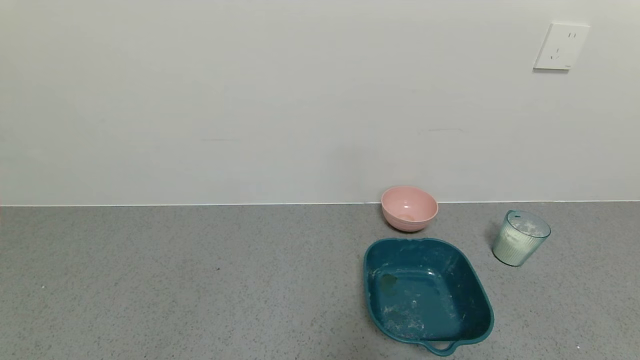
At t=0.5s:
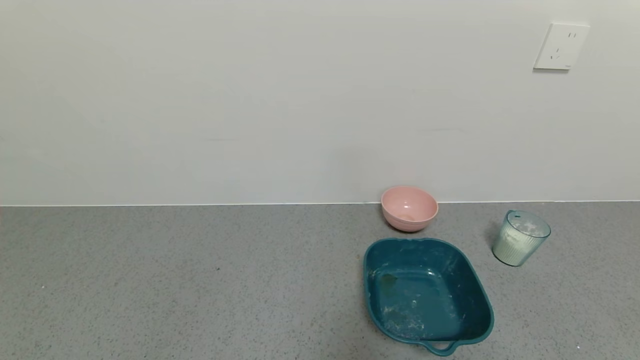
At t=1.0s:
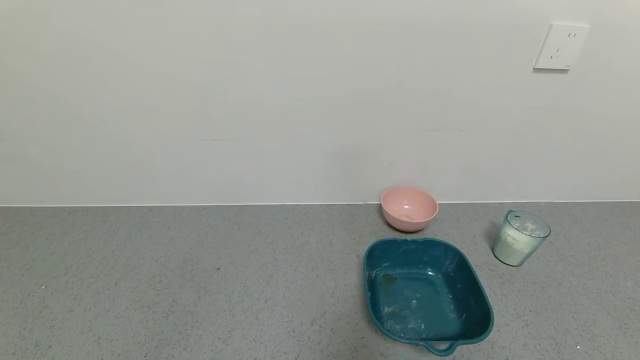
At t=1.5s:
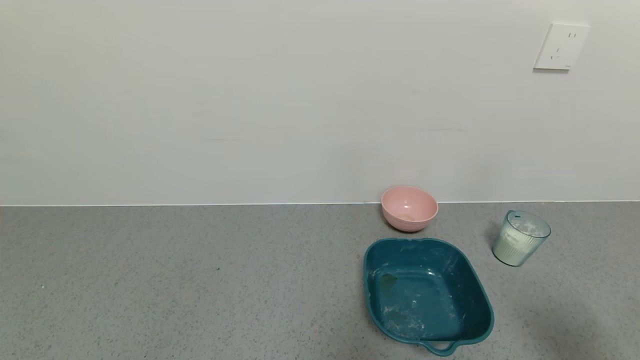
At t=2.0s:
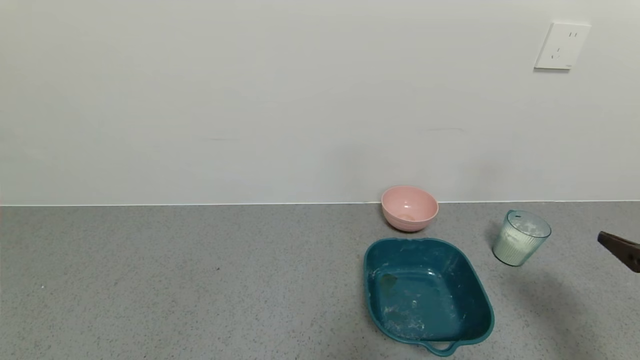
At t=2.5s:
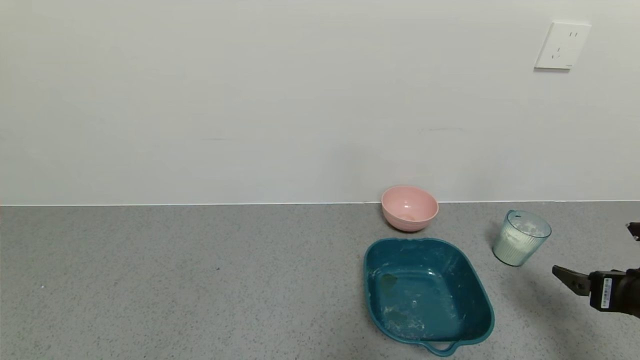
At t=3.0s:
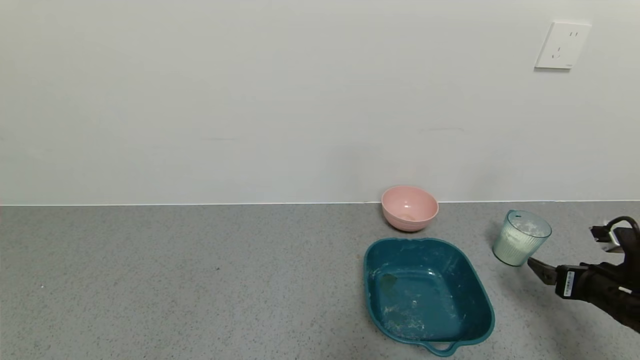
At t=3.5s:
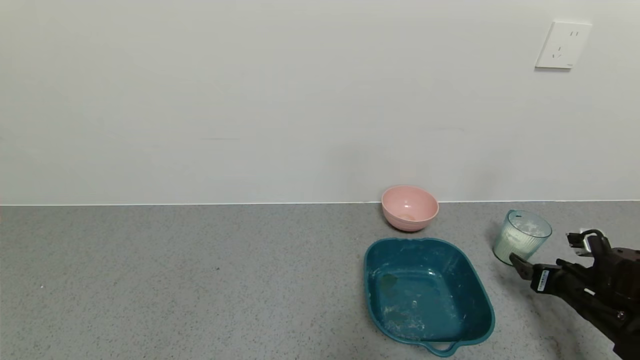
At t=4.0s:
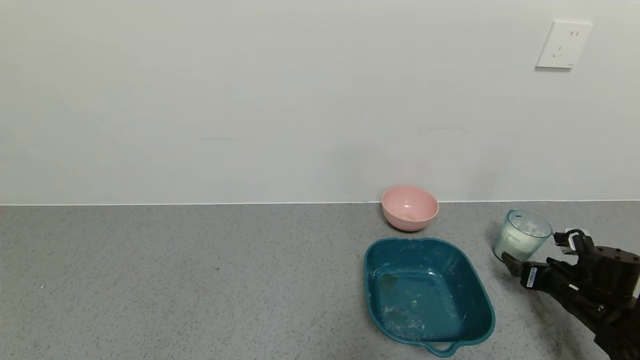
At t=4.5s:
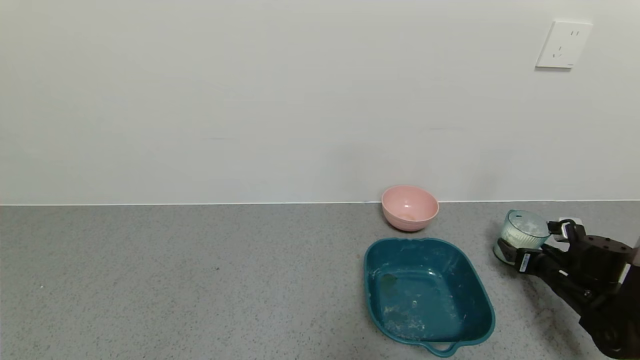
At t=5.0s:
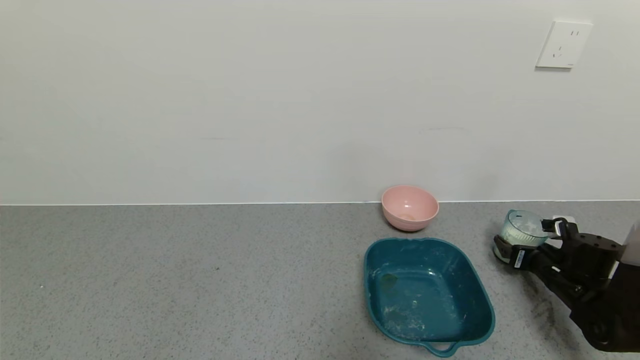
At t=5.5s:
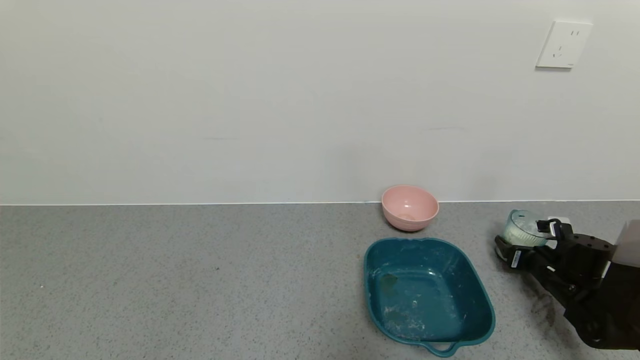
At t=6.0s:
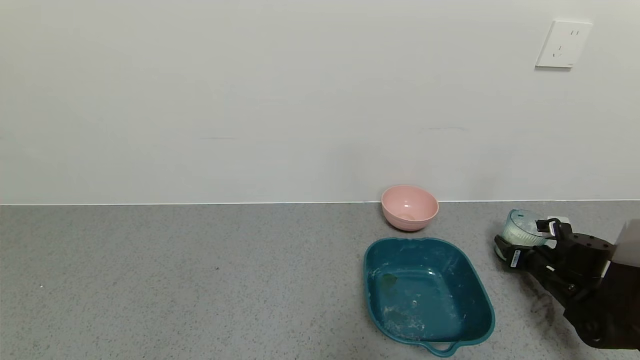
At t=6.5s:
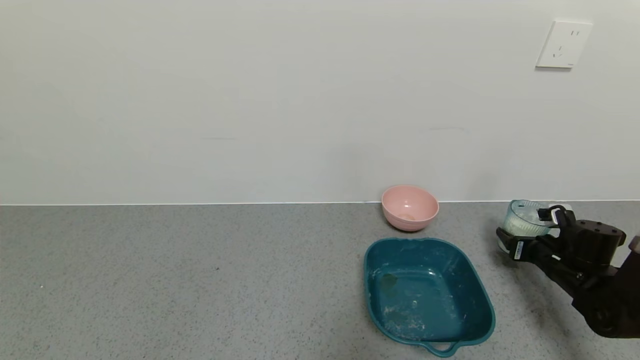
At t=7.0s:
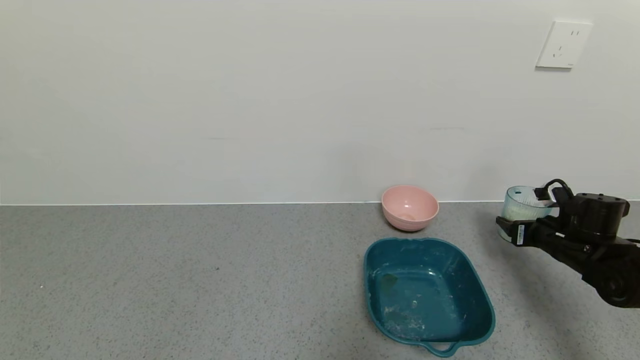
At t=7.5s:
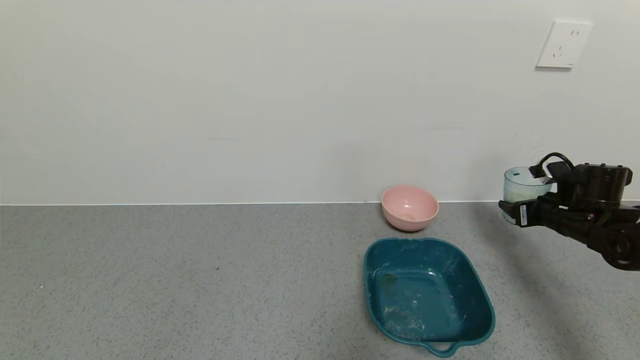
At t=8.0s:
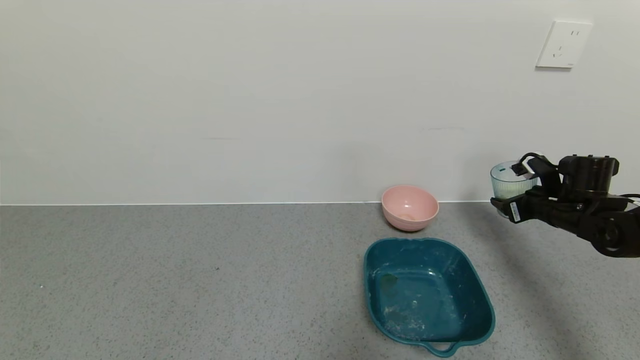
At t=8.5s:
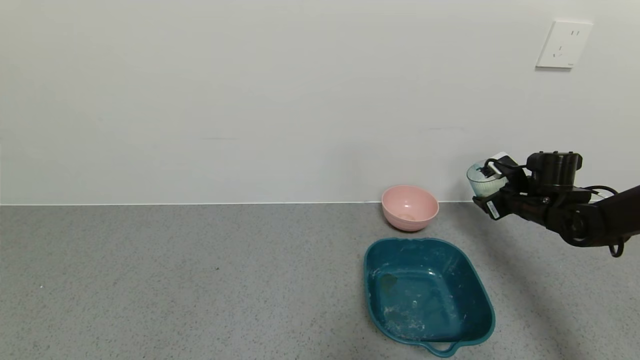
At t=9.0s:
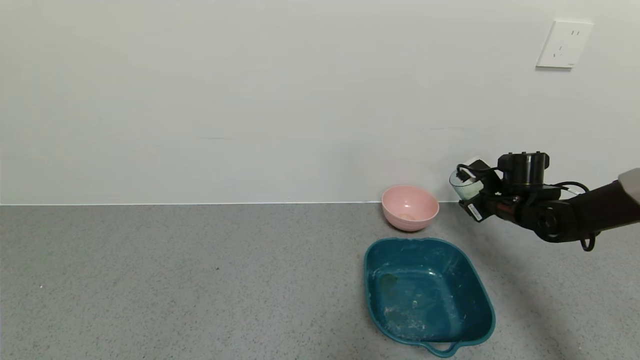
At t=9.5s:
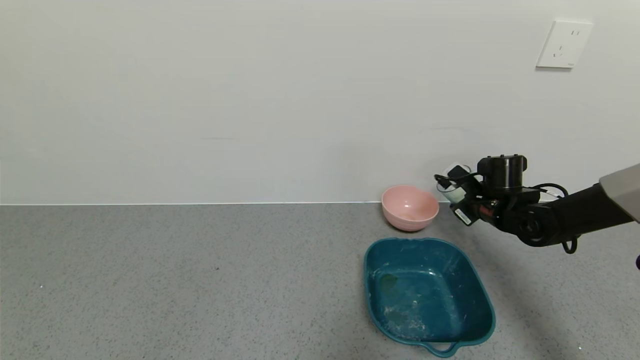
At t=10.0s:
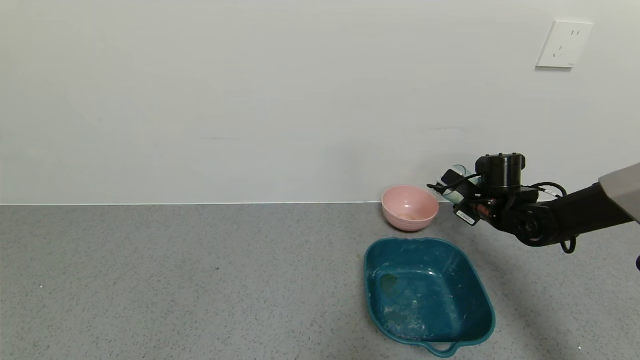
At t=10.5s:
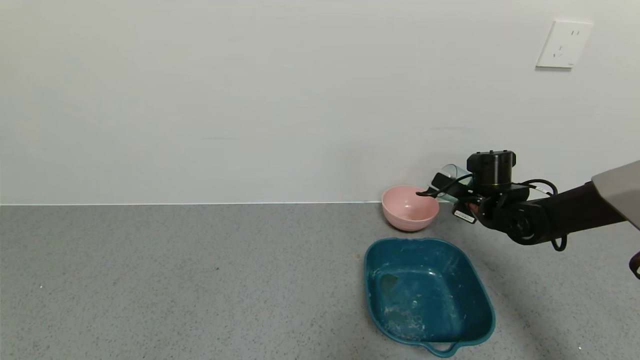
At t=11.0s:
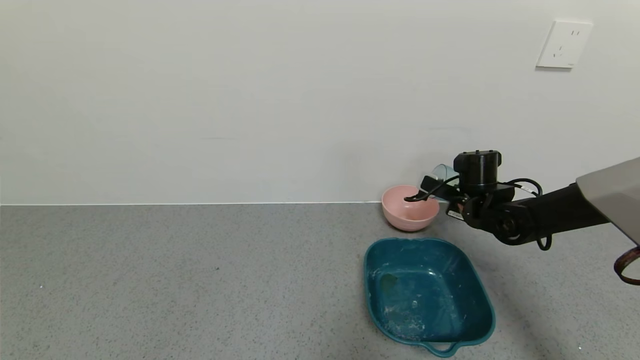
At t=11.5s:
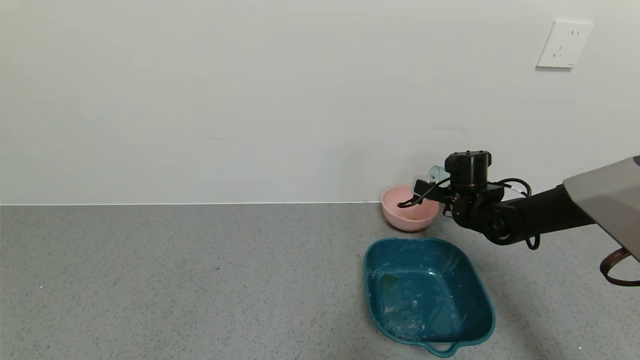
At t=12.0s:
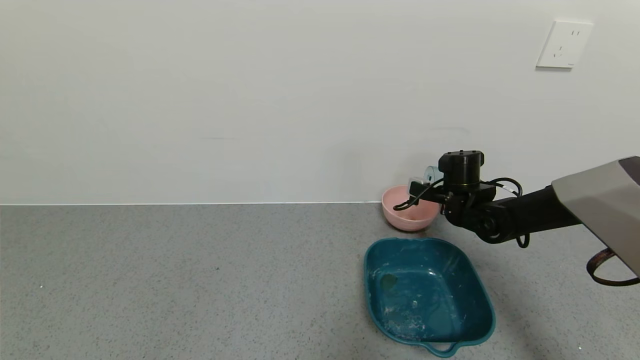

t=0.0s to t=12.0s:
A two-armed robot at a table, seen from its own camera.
Task of the whole recording: use a gripper to pick up the cup and pour the powder into a bowl or tray.
Step, t=0.0s to t=5.5s: Grasp the glass of powder with the right gripper.
t=0.0s to t=2.0s: The right gripper travels forward and upward by about 20 cm.
t=2.0s to t=4.0s: The right gripper heads downward and forward, covering about 20 cm.
t=4.0s to t=6.0s: The right gripper travels forward by some 5 cm, and closes up.
t=6.0s to t=8.0s: The right gripper shifts some 10 cm upward.
t=8.0s to t=10.0s: The right gripper travels to the left by some 10 cm.
t=10.0s to t=12.0s: The right gripper moves to the left, about 5 cm.

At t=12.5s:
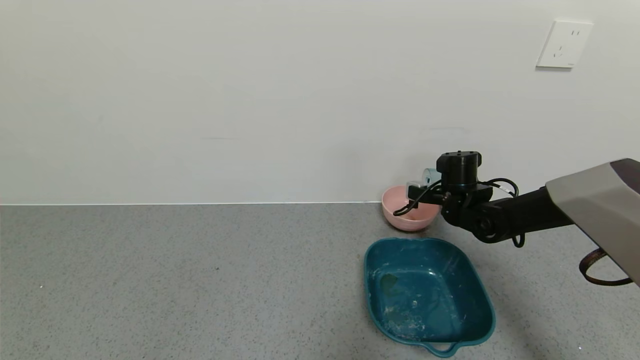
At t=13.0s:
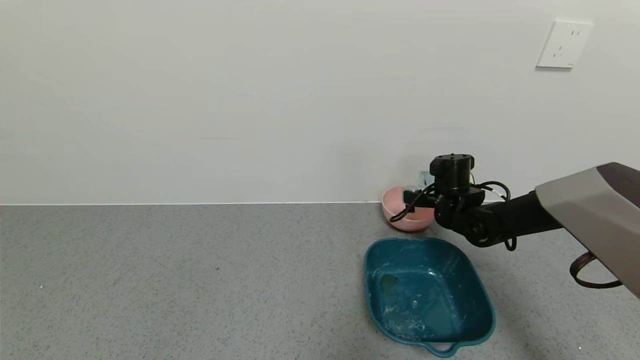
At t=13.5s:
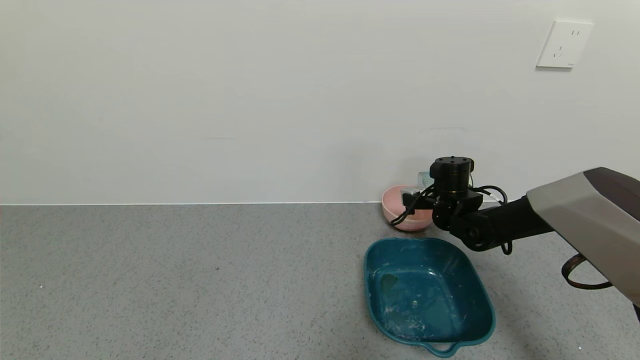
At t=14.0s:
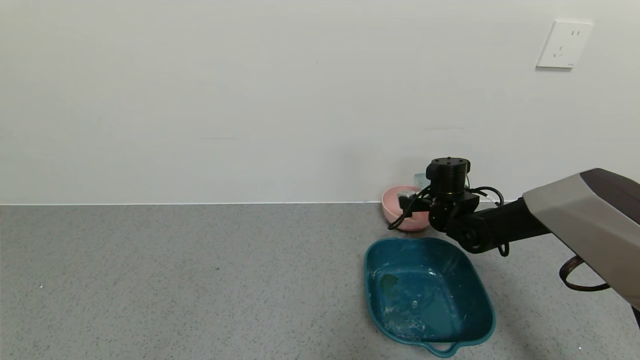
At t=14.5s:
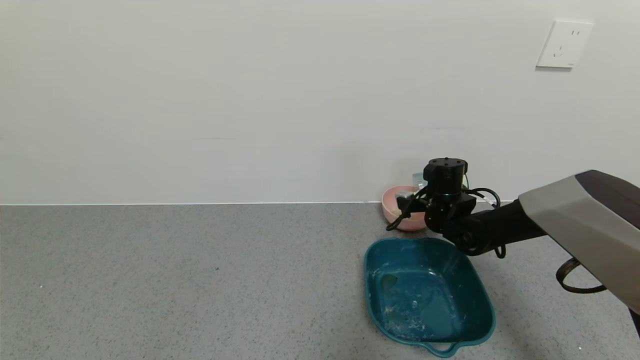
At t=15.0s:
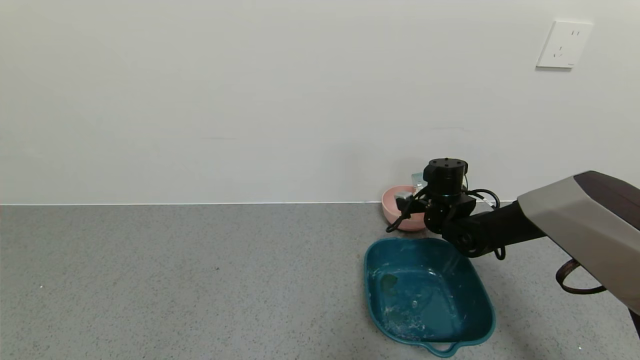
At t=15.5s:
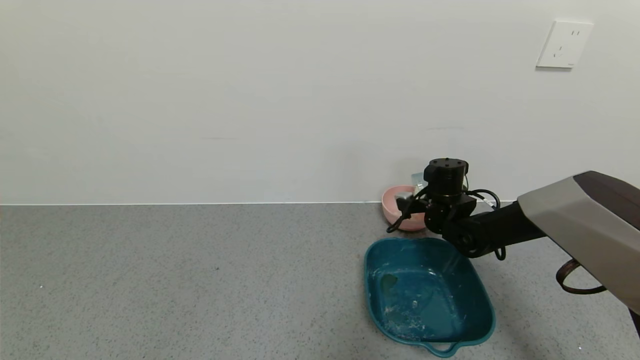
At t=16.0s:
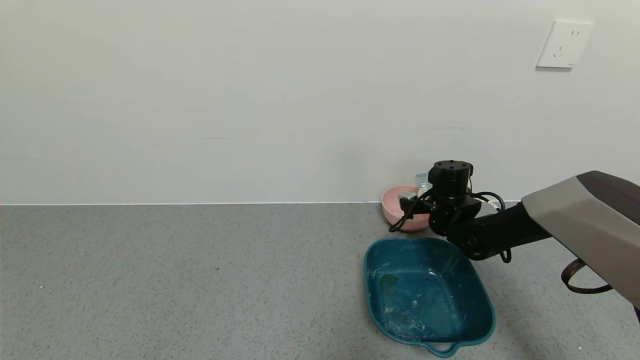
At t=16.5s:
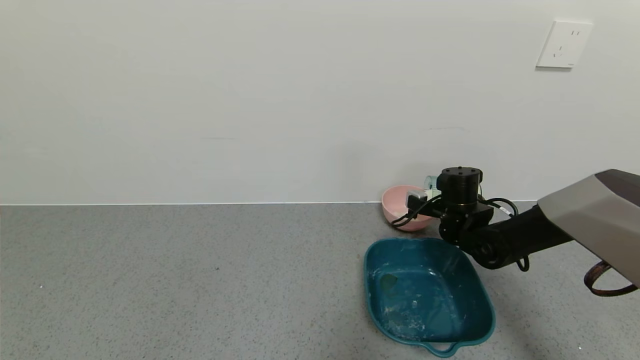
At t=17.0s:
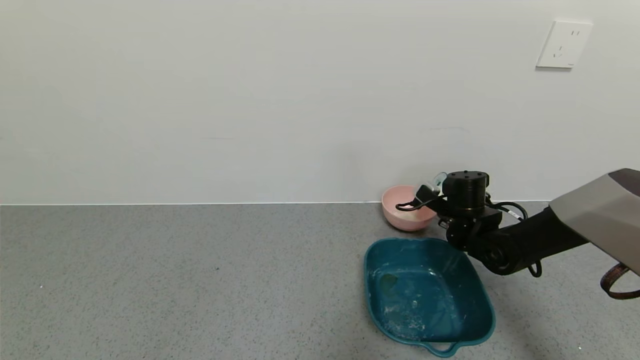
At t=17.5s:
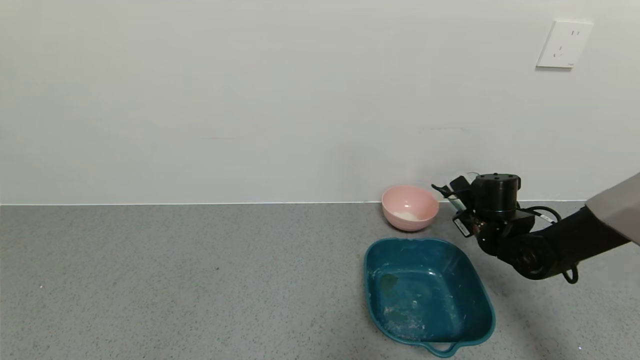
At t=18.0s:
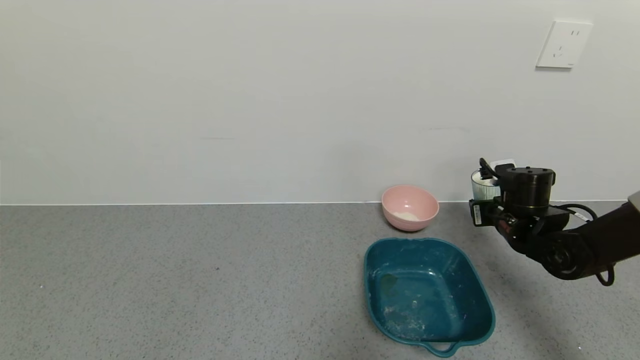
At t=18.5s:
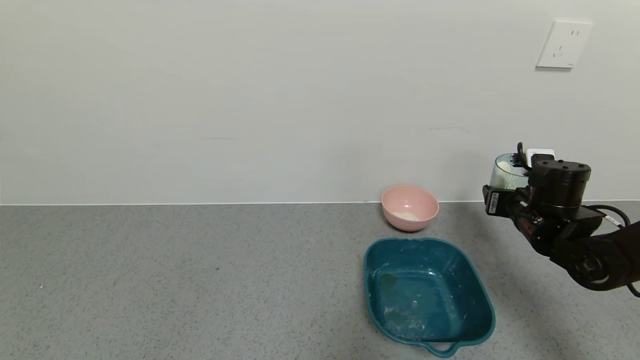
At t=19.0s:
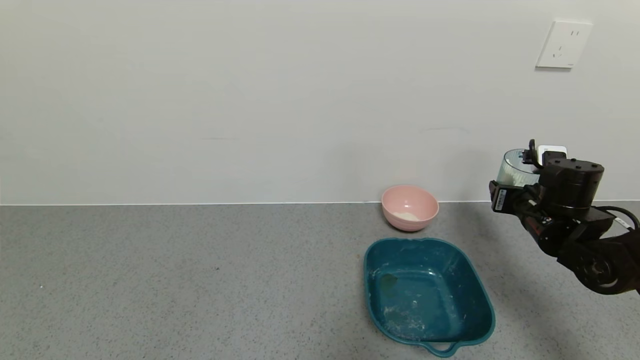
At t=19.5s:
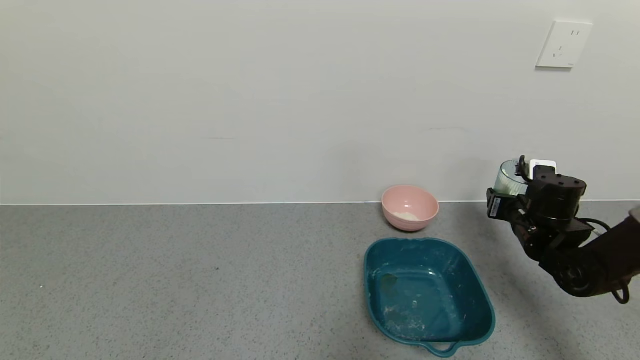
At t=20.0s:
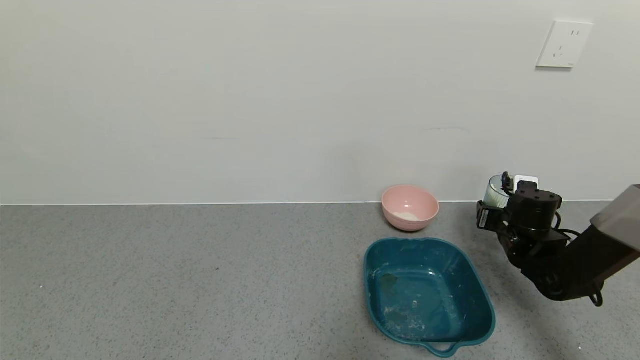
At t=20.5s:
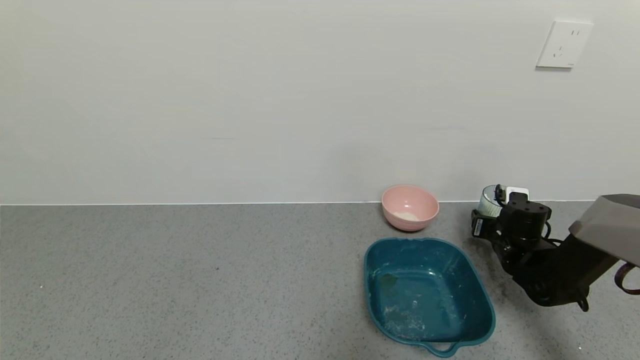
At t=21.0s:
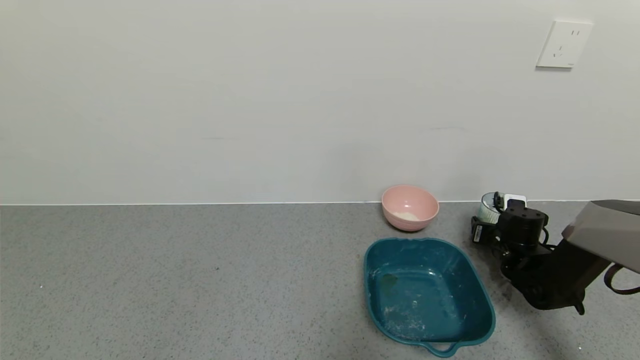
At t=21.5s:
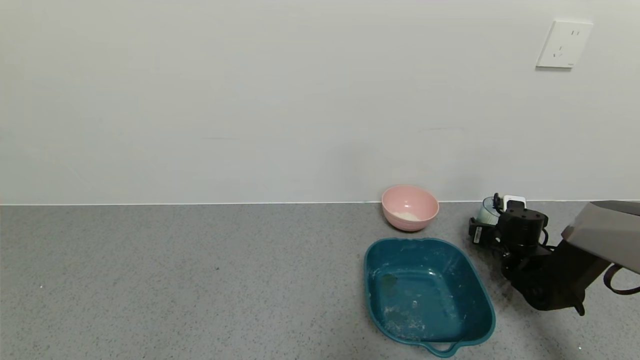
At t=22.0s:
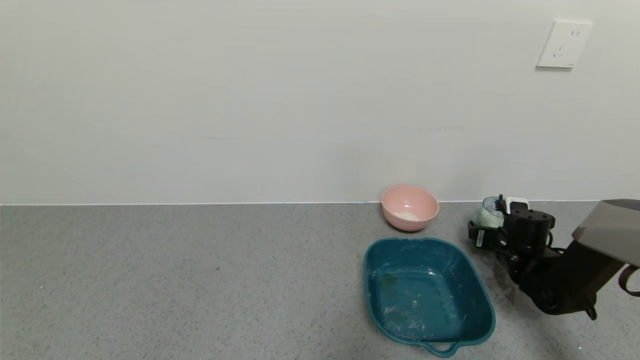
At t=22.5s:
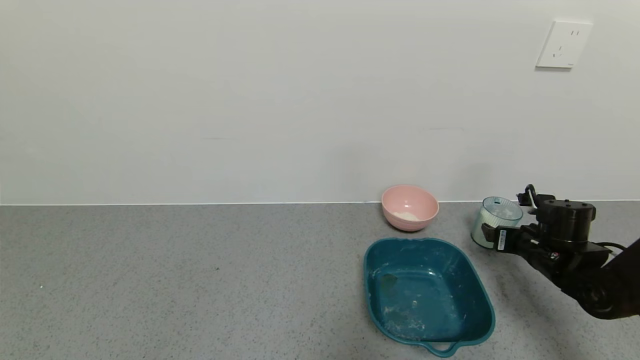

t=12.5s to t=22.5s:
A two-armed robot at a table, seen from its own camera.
Task of the whole recording: use a gripper to pick up the cup and pour the powder into a bowl or tray.
Step, t=12.5s to t=16.5s: Pour the powder into the pink bowl with the right gripper.
Step, t=17.0s to t=22.5s: Place the glass cup down with the right gripper.
t=12.5s to t=16.5s: The grippers make only small movements.
t=16.5s to t=18.5s: The right gripper is displaced to the right and backward by some 10 cm.
t=18.5s to t=20.5s: The right gripper shifts roughly 10 cm downward.
t=20.5s to t=22.5s: The right gripper heads backward, covering approximately 5 cm, and opens its fingers.
